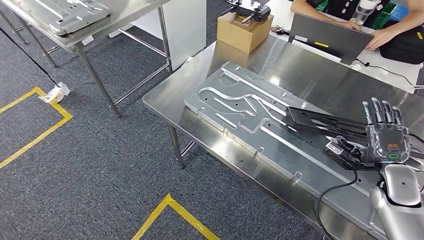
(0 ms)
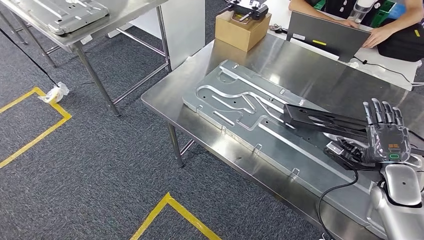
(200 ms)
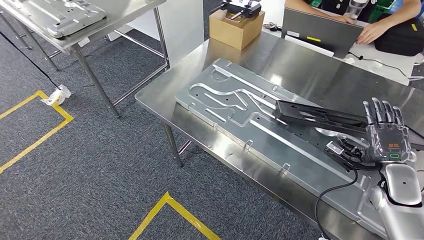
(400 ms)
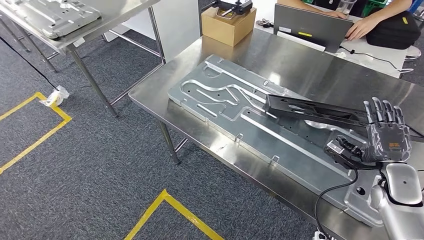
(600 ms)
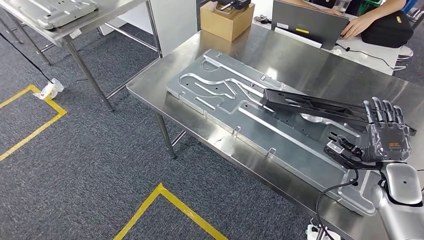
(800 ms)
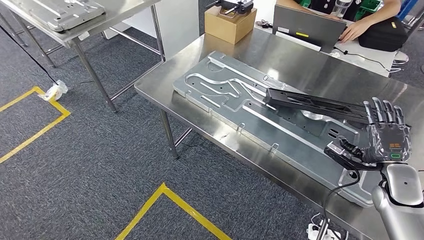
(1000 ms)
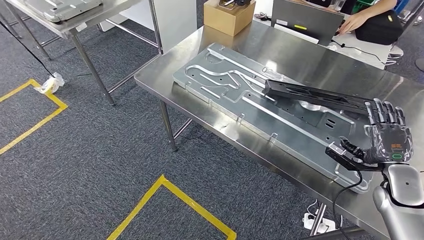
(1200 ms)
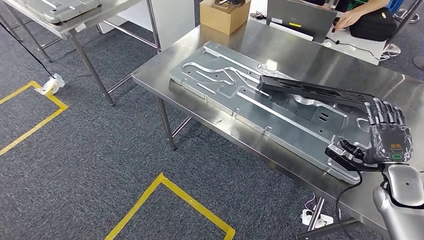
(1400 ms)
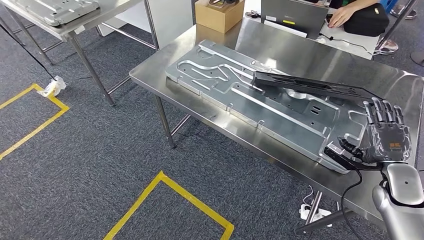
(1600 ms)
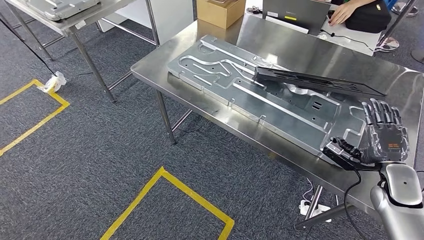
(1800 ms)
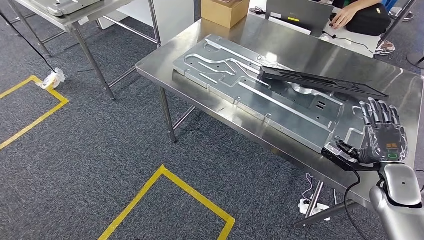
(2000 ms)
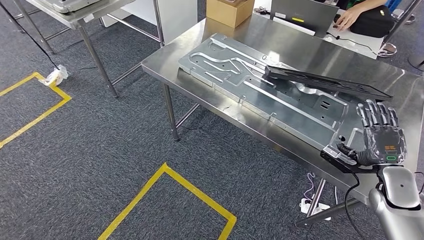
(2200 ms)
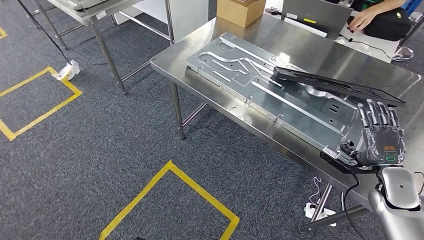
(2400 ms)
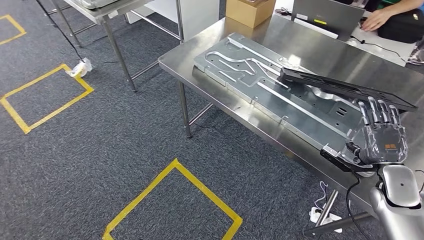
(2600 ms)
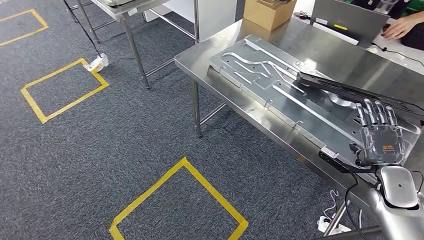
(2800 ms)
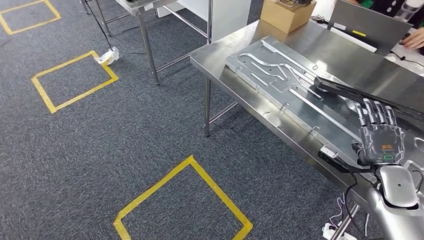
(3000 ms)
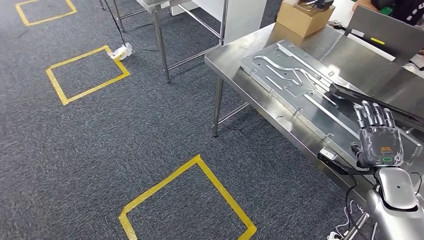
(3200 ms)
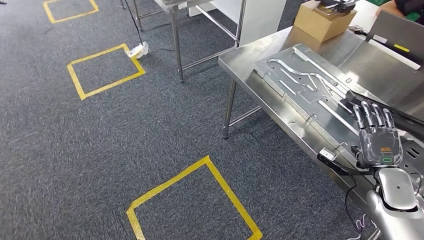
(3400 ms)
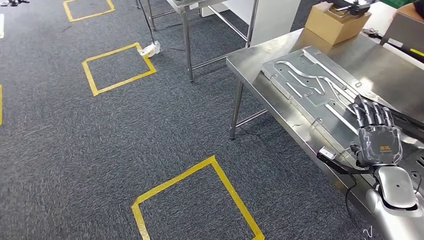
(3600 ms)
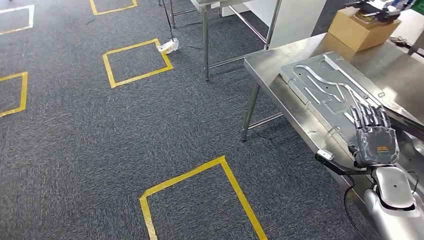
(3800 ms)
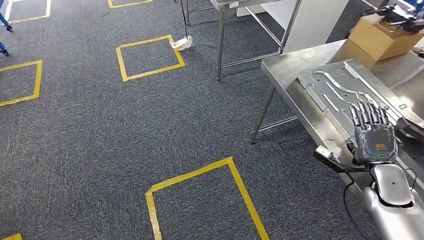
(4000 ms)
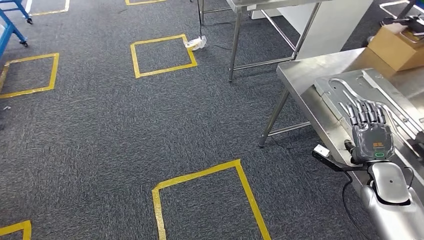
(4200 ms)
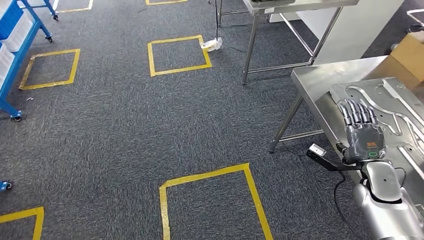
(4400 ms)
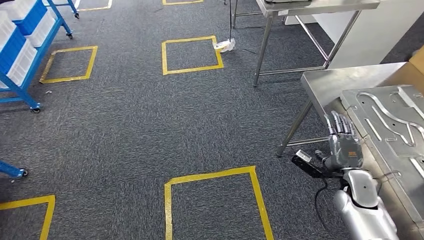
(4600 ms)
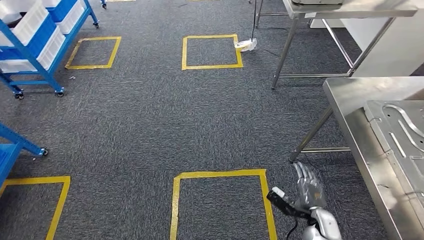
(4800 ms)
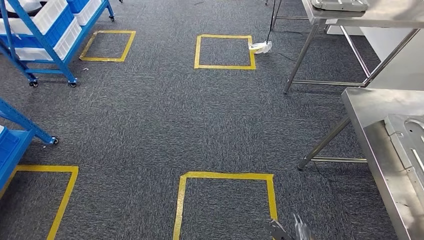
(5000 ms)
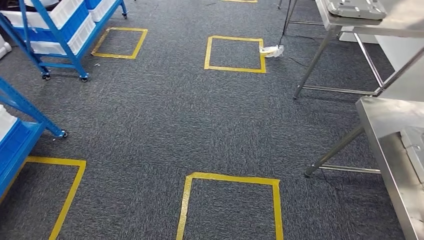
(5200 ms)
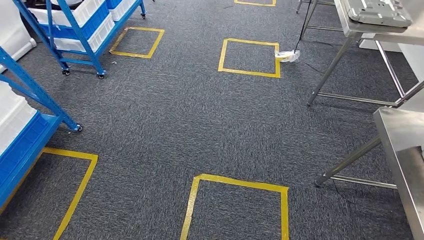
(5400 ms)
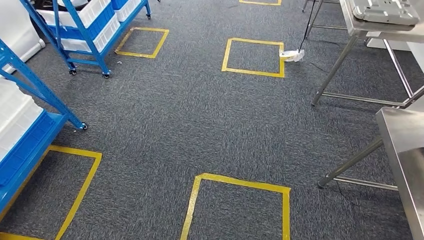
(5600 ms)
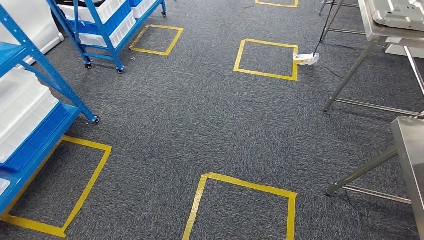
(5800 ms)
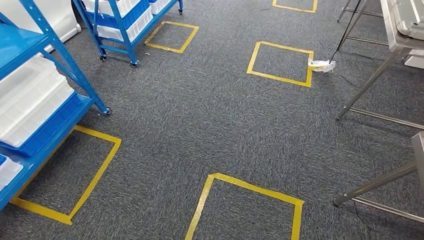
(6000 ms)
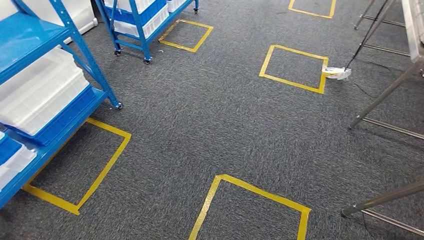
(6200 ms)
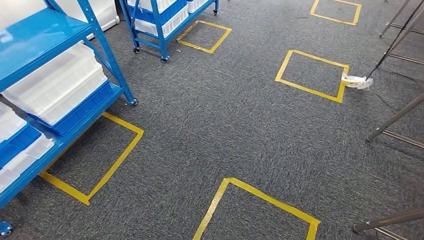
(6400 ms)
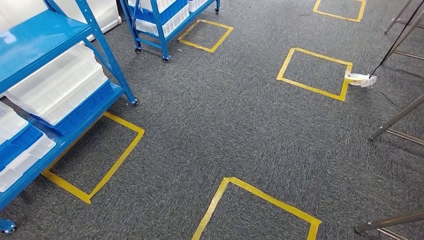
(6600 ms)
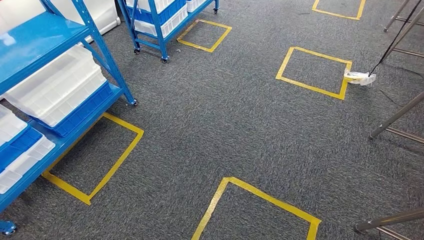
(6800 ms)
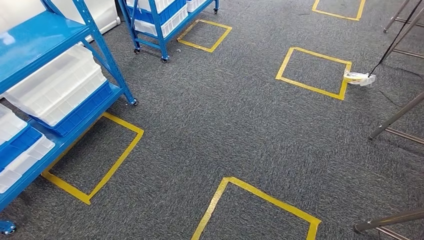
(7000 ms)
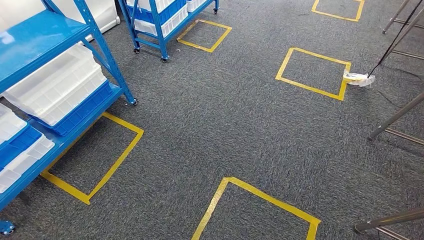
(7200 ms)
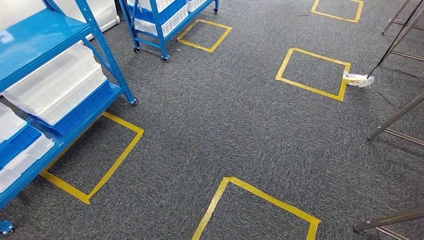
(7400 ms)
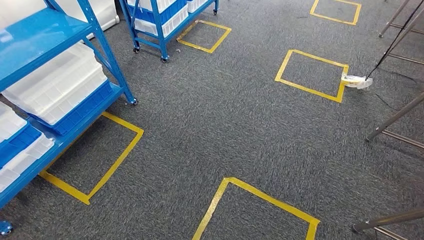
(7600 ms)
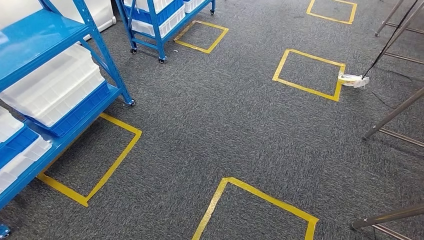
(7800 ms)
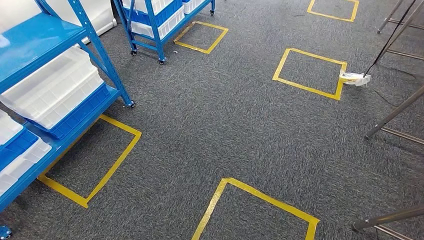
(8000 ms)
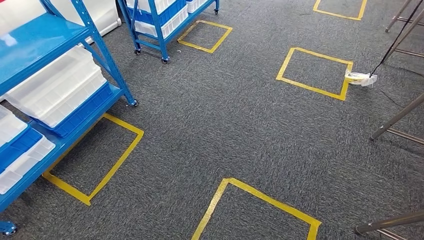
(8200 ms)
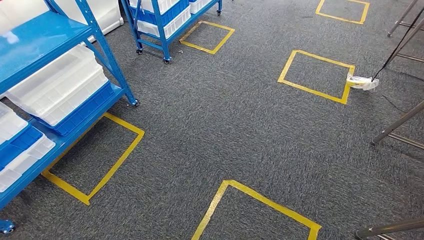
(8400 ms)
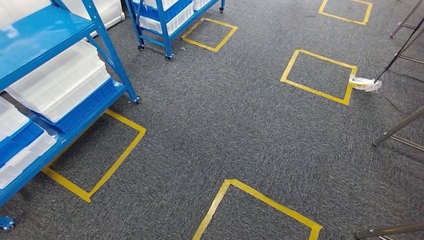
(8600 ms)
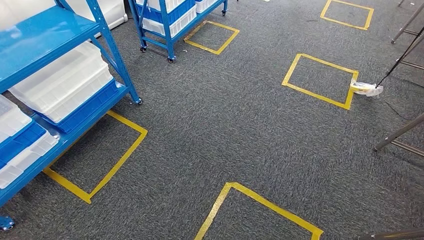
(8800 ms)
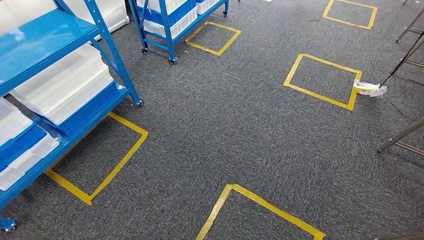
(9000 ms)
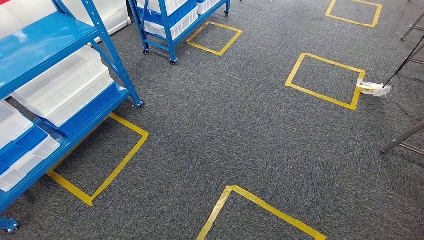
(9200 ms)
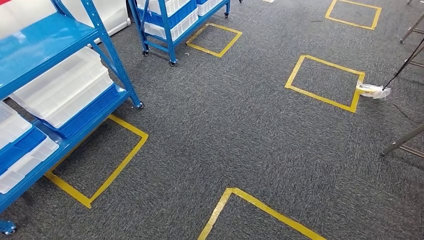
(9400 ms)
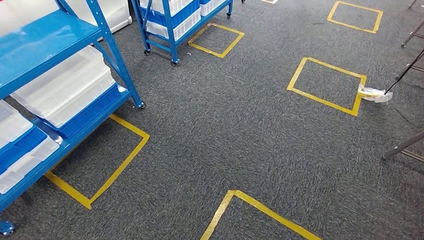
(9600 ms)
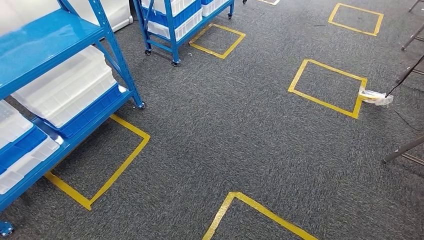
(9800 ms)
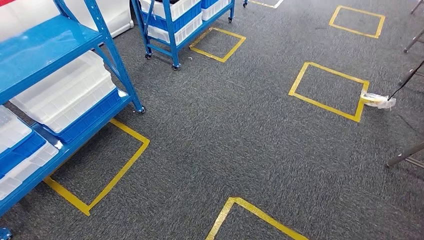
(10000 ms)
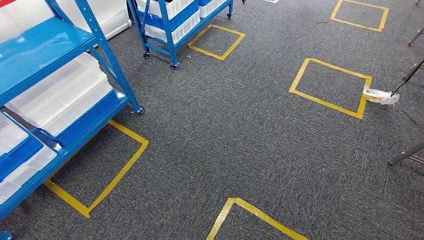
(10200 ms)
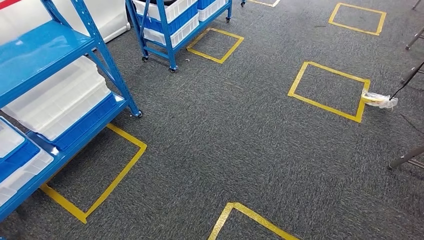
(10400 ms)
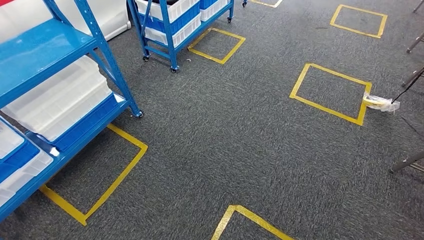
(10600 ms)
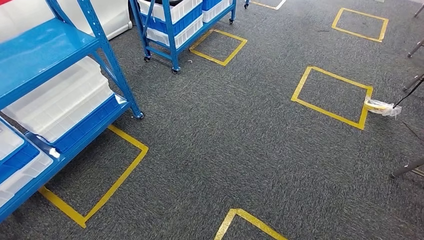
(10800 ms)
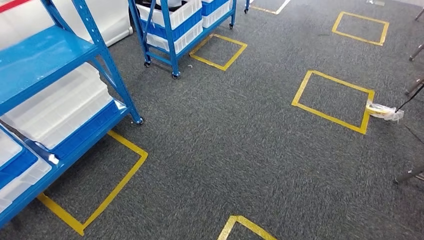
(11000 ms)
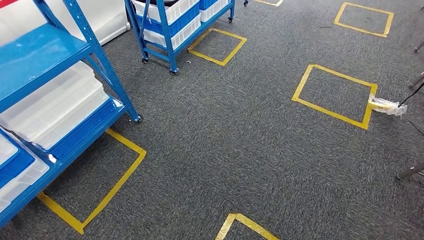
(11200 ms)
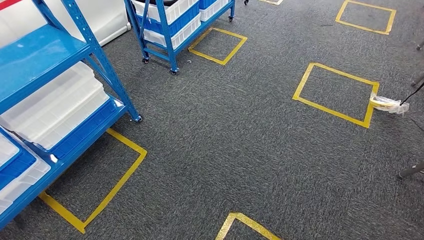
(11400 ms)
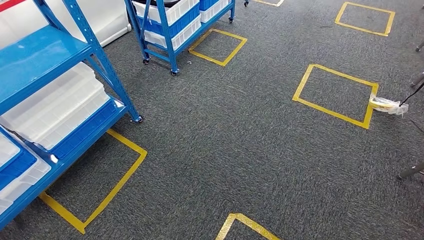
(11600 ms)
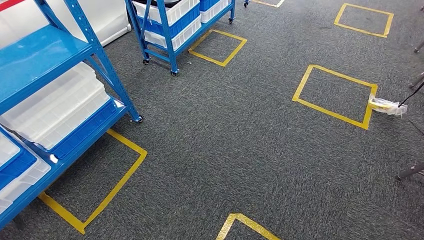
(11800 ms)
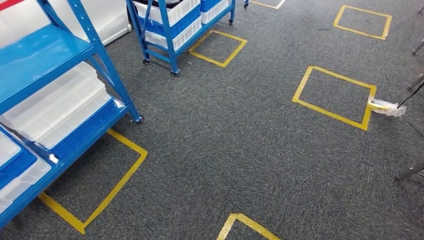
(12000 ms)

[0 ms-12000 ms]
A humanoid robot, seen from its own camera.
7600 ms to 9000 ms: Both hands stay put.
10400 ms to 12000 ms: Both hands stay put.

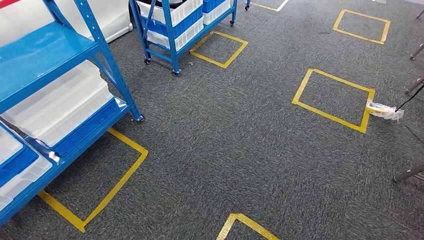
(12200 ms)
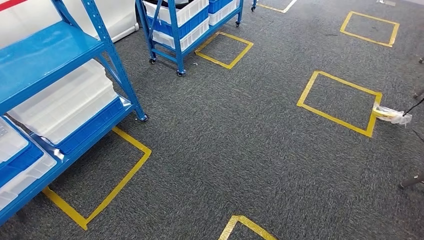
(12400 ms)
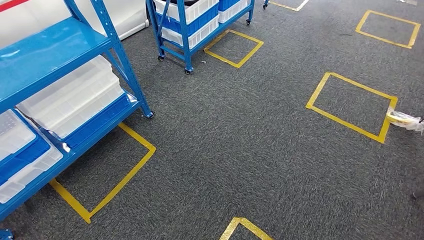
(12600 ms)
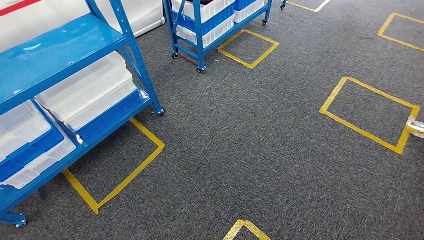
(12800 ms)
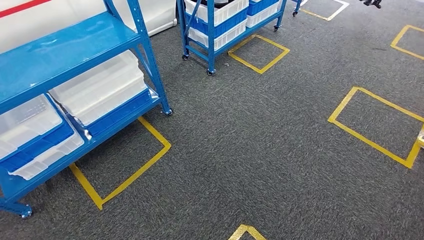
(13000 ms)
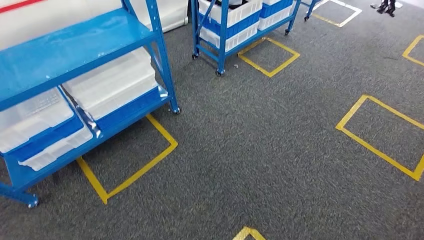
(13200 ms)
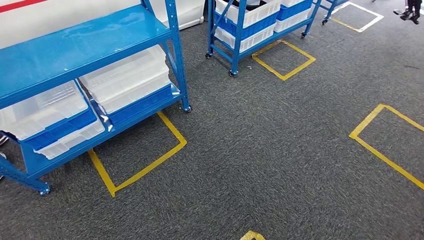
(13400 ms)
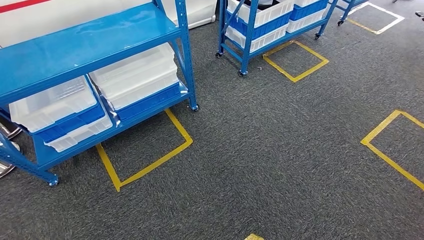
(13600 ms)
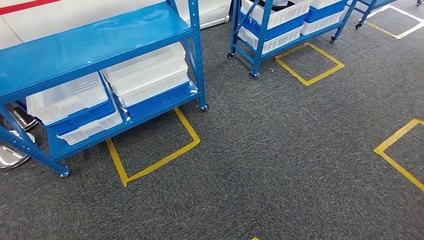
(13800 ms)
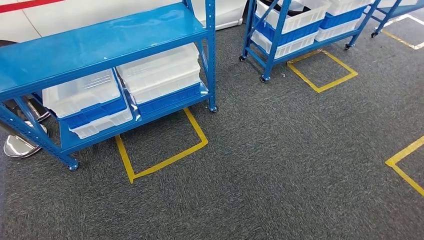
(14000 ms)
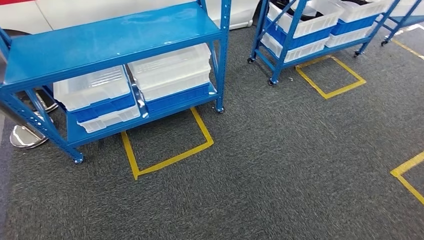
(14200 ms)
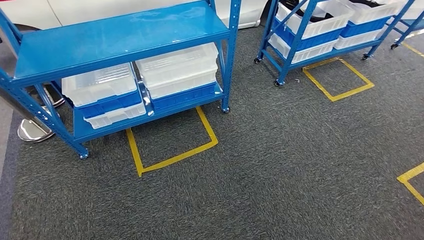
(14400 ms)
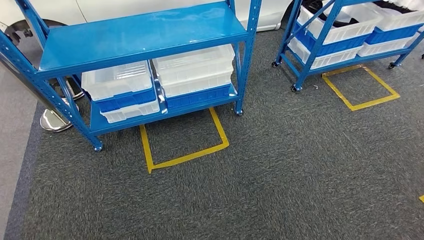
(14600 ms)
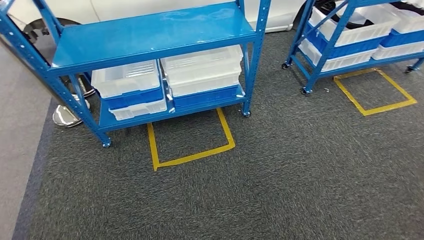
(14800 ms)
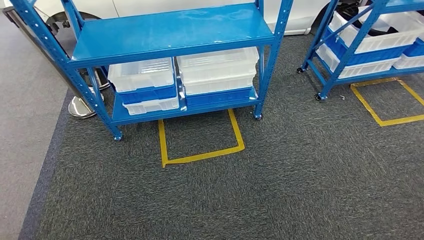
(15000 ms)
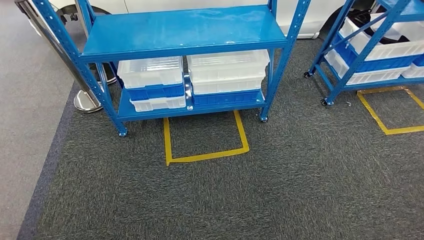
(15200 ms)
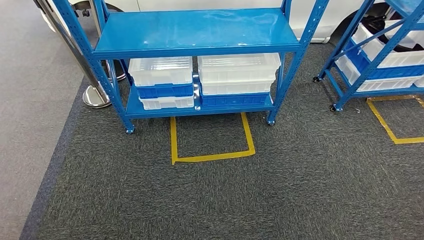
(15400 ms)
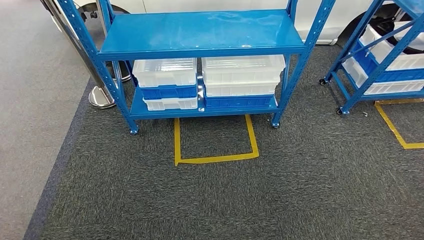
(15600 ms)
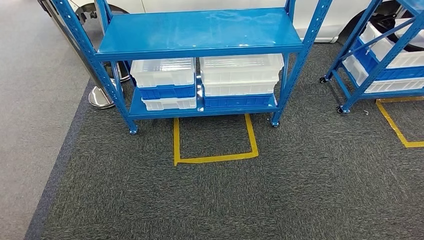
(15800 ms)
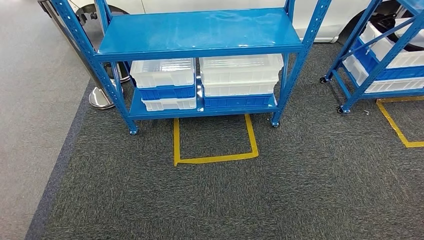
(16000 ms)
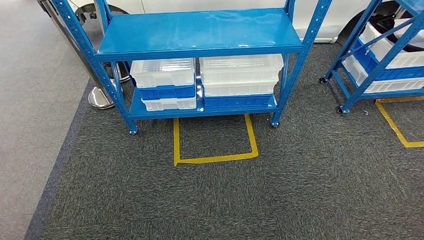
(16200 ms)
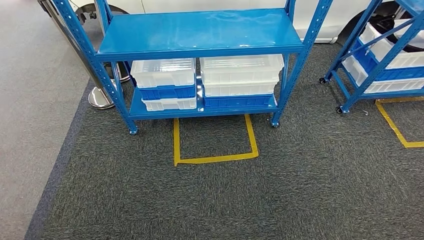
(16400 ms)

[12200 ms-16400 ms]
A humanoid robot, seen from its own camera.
Step, 12200 ms to 16400 ms: Move to the initial position of the shelf.
